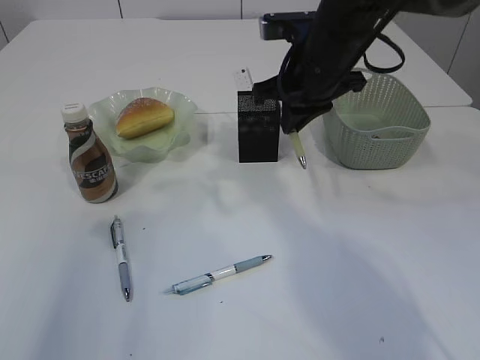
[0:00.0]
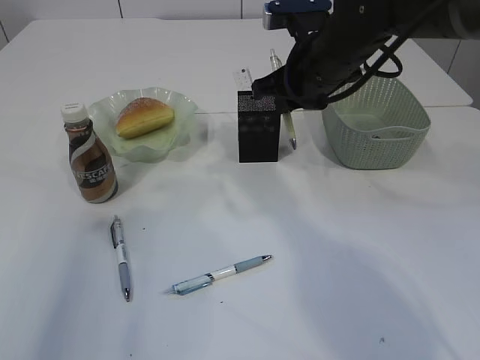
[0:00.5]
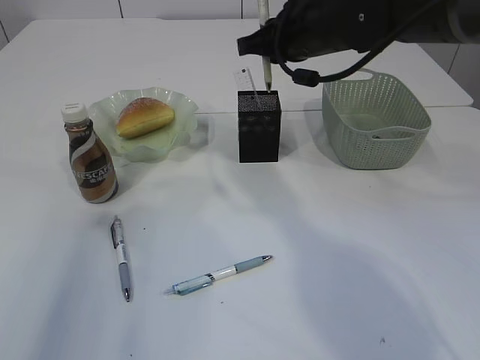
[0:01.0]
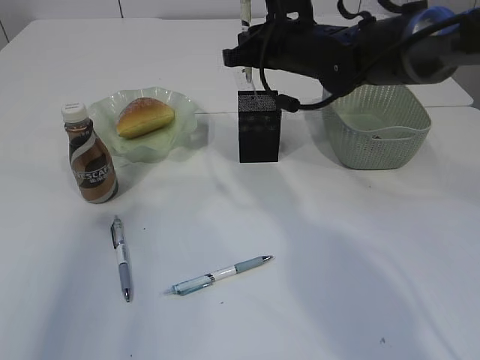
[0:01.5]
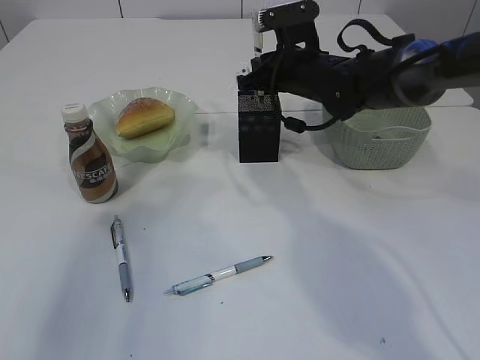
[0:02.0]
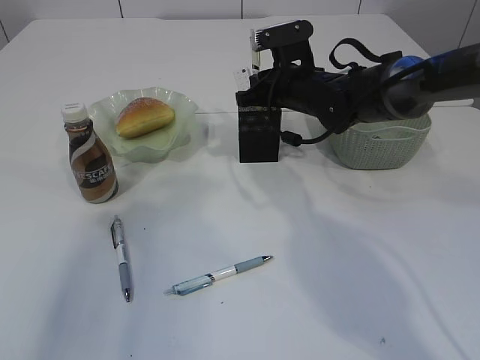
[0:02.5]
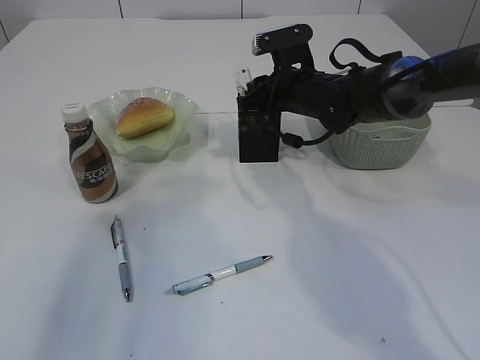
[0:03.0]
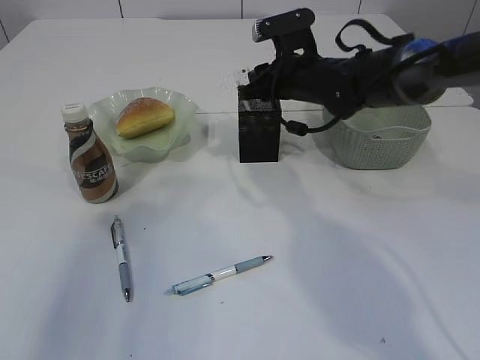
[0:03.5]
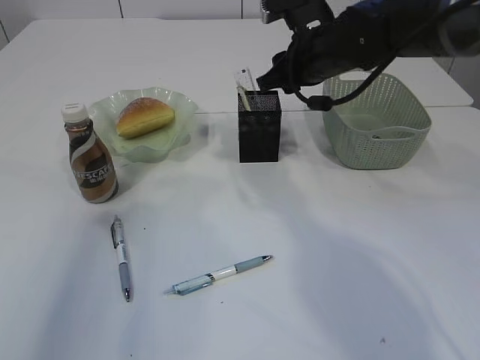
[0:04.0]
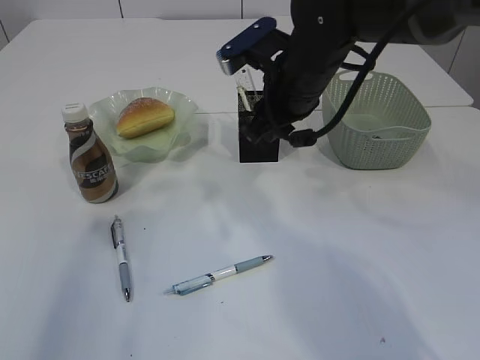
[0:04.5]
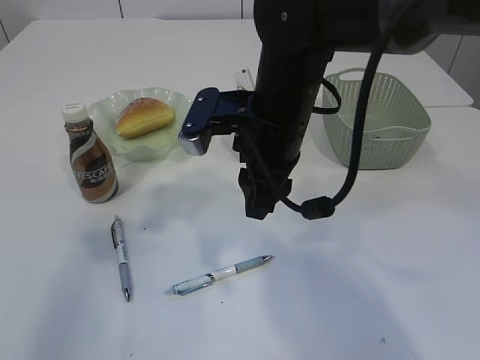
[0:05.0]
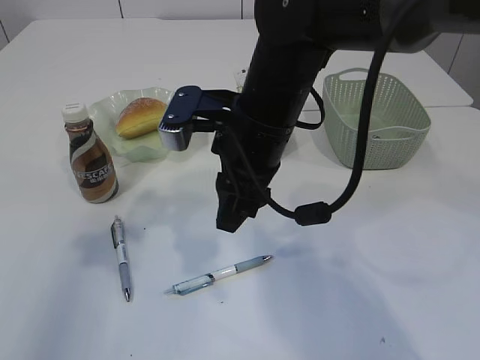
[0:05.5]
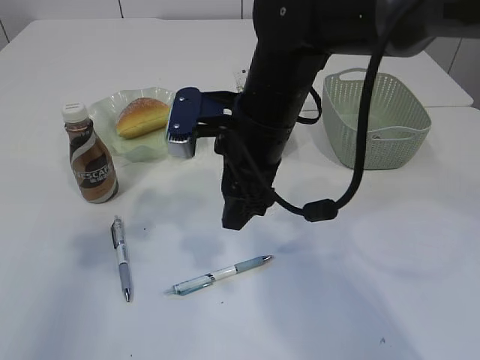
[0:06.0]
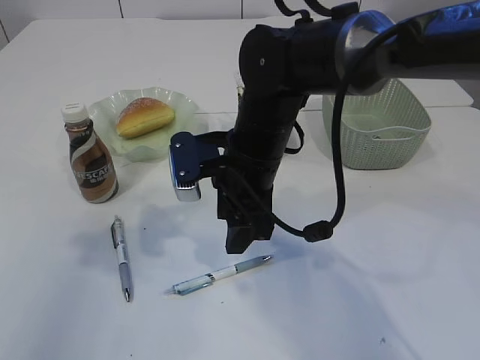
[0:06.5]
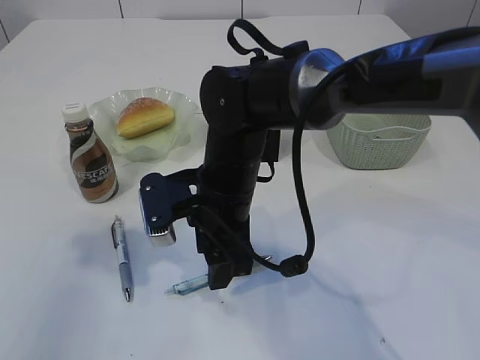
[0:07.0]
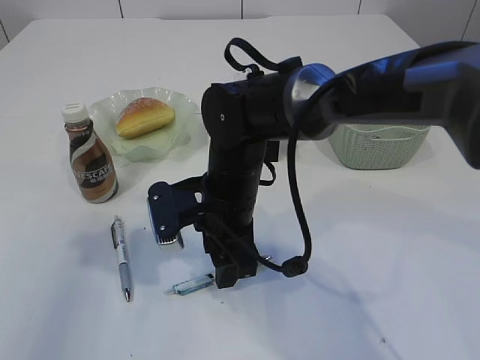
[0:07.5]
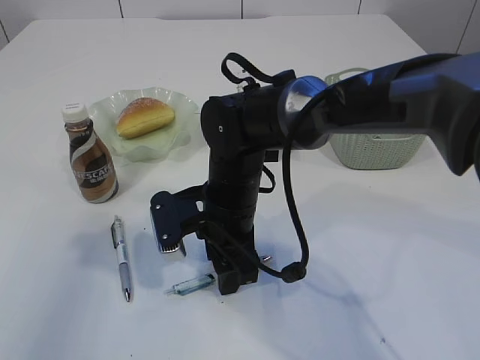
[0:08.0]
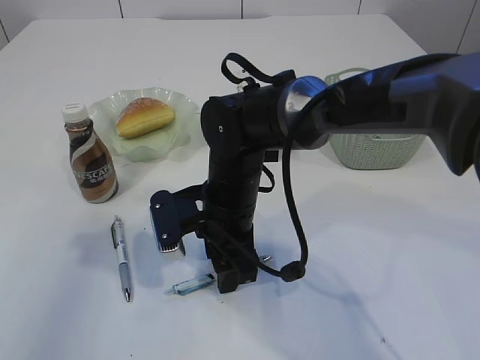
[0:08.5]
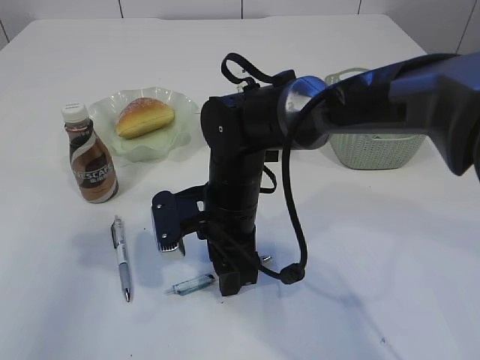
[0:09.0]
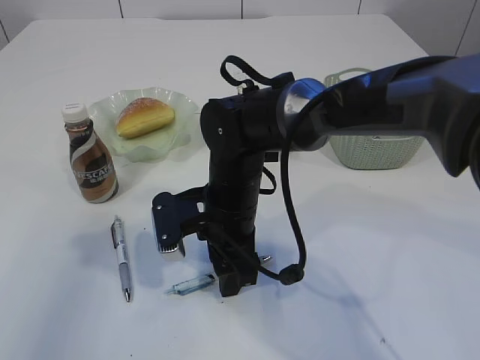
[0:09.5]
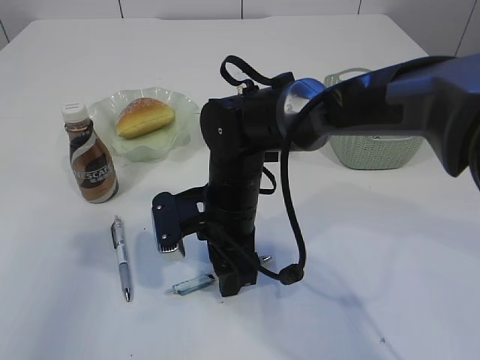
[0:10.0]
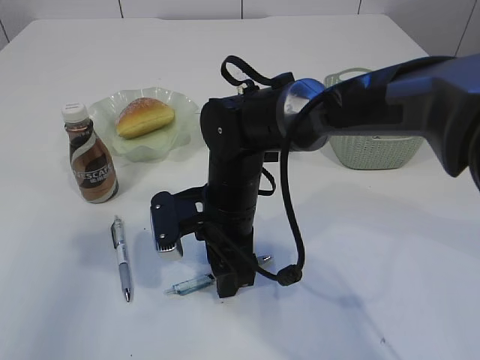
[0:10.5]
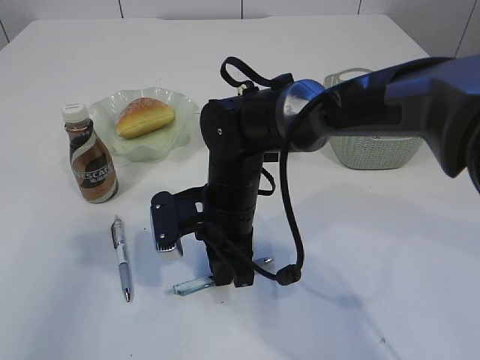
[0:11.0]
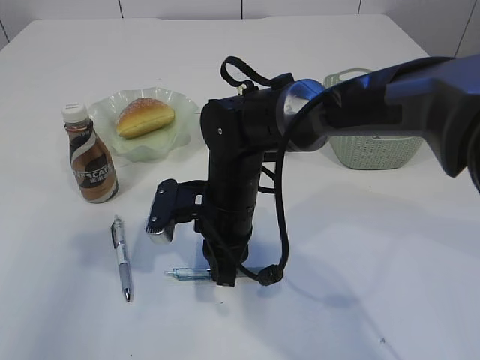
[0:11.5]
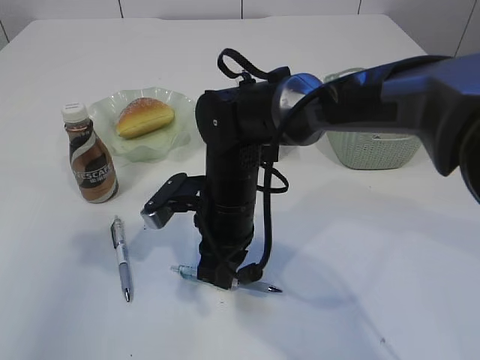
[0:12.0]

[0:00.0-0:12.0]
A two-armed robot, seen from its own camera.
Step, 0.0 to 4.0 s: Place the pen into the pen holder.
0.0 to 2.0 s: The right gripper shifts approximately 10 cm forward and downward.
2.0 to 4.0 s: The right gripper changes place by some 5 cm, and opens its fingers.
4.0 to 6.0 s: The right gripper moves backward and to the left, approximately 15 cm, and opens up.
6.0 to 8.0 s: The right gripper travels downward by some 10 cm.
8.0 to 10.0 s: Neither gripper changes place.
10.0 to 12.0 s: The right gripper closes its fingers.

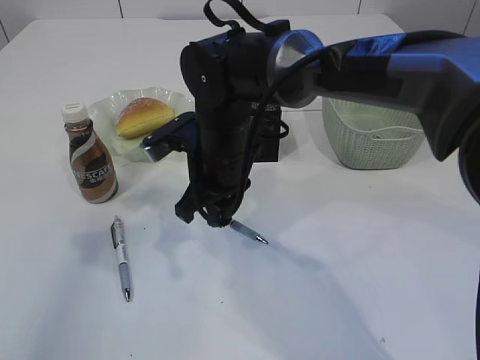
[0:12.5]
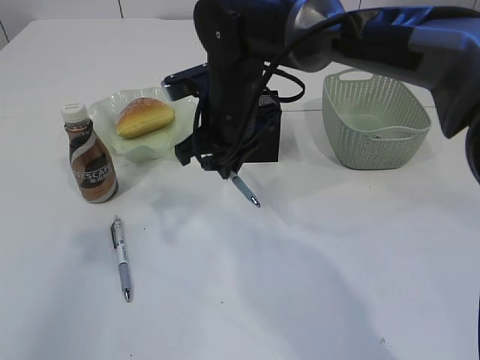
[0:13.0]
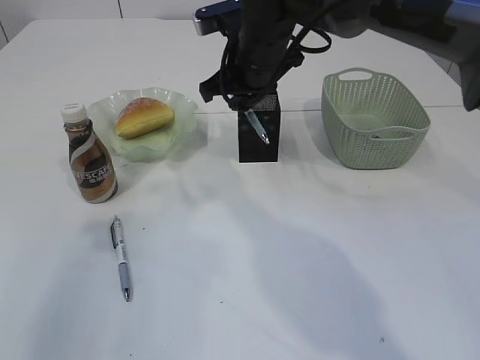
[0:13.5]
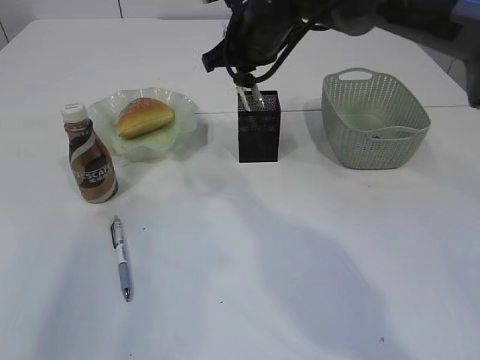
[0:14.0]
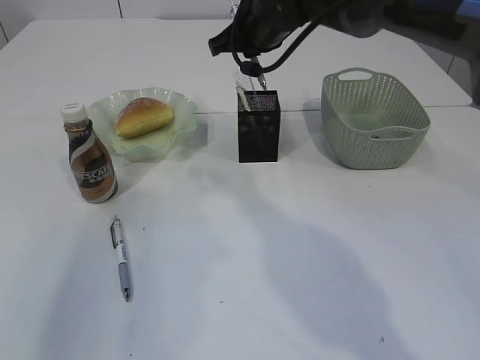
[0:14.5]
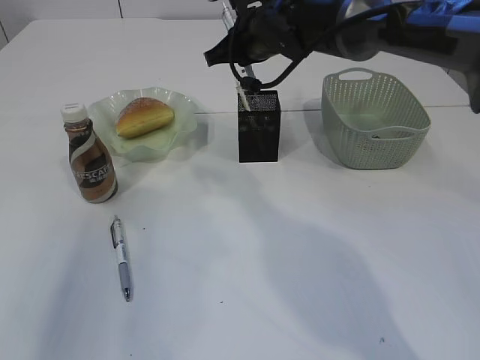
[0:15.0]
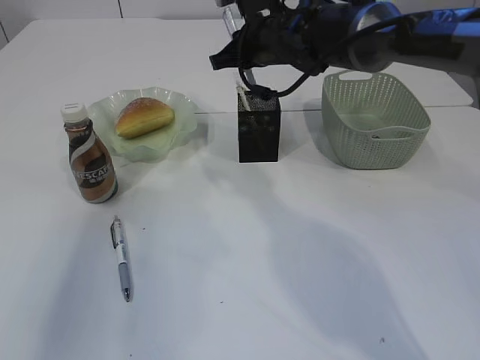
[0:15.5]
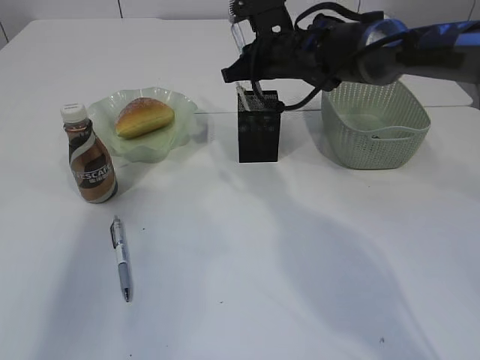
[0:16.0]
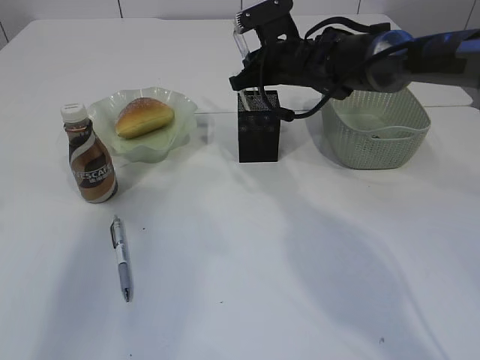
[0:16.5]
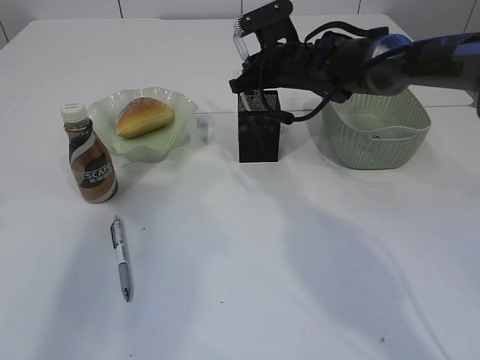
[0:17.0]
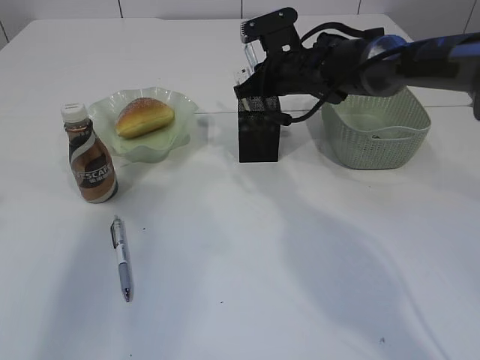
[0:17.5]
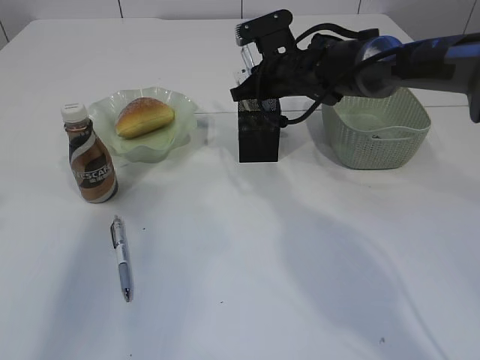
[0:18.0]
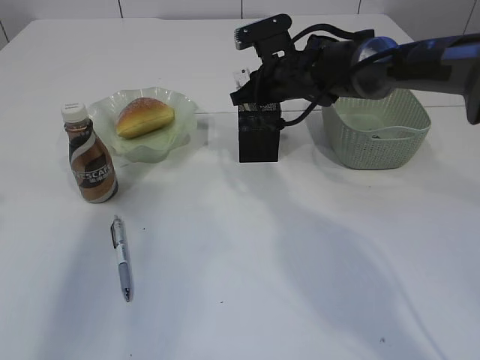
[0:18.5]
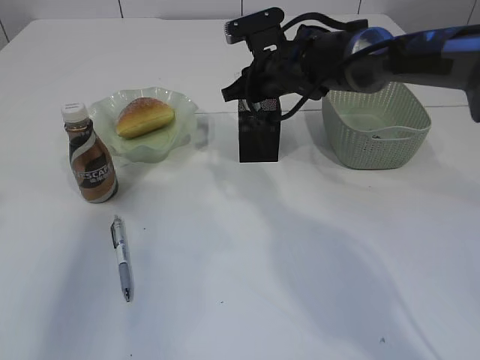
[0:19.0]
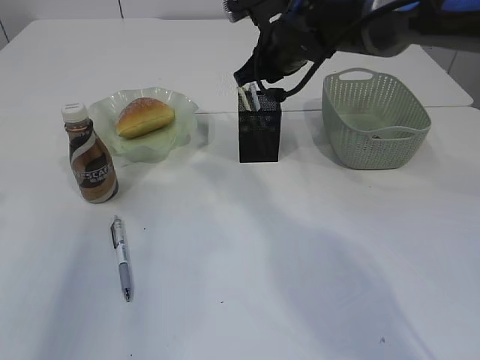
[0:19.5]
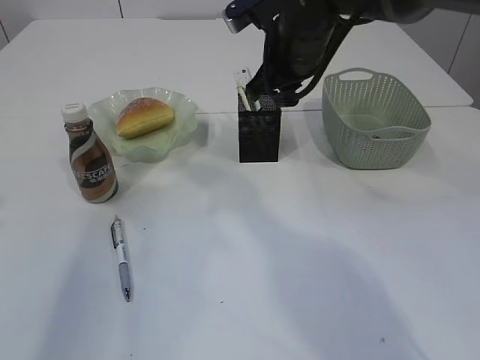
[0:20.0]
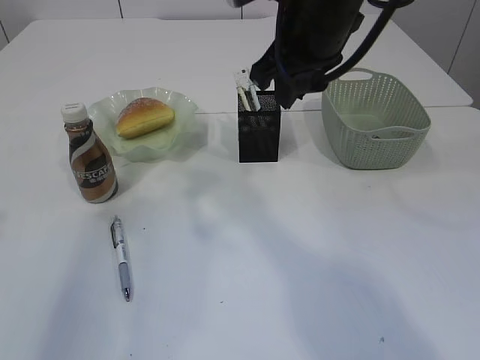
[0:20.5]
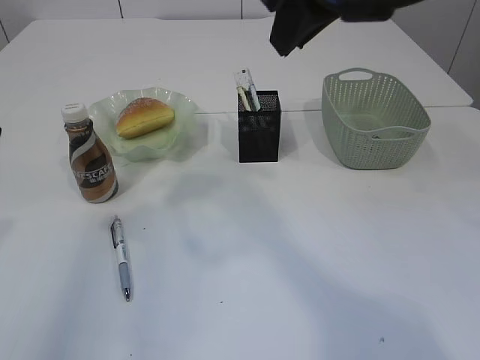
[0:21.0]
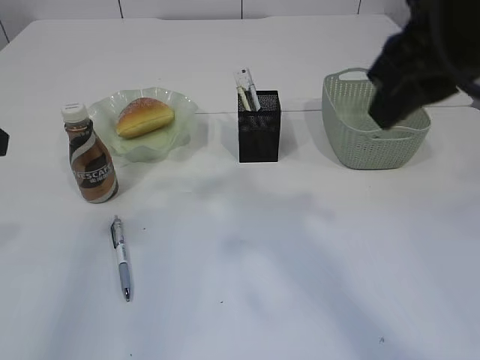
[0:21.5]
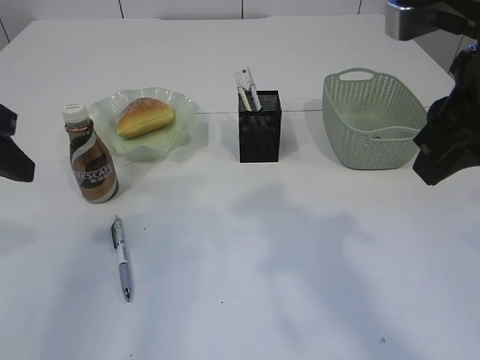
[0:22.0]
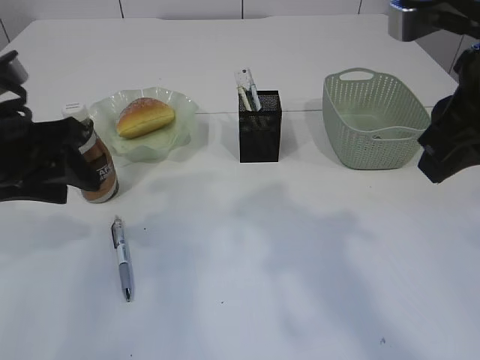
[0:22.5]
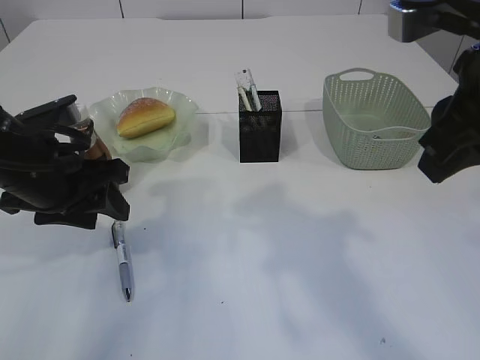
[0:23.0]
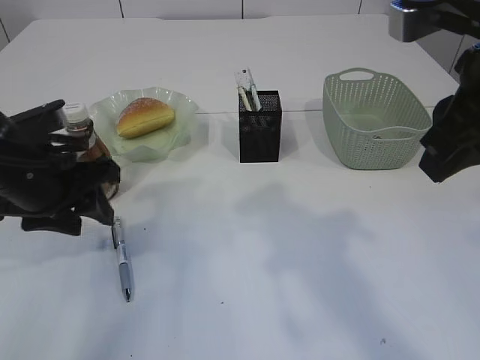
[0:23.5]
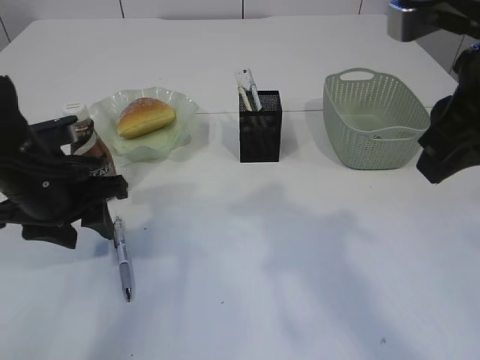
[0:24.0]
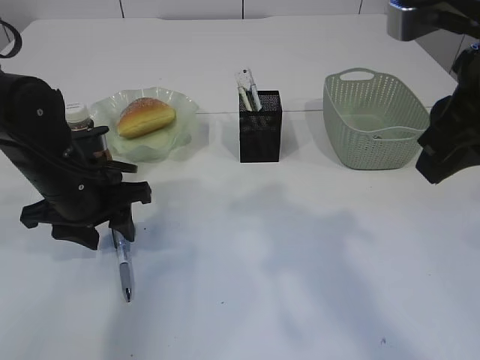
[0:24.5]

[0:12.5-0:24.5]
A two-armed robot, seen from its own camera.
Step, 13.0 to 20.5 s: Place the pen into the pen holder.
12.5 to 14.5 s: The right gripper goes approximately 15 cm forward, upward and to the right.
14.5 to 16.5 s: The right gripper shifts some 5 cm downward.
16.5 to 18.5 s: The grippers stay close to where they were, moving slightly.
18.5 to 20.5 s: The right gripper moves upward and backward, roughly 20 cm.
20.5 to 22.5 s: The left gripper heads downward and to the right, covering some 10 cm. Meanwhile the right gripper is displaced backward and to the right by approximately 15 cm.
22.5 to 24.5 s: The left gripper moves downward, roughly 10 cm.

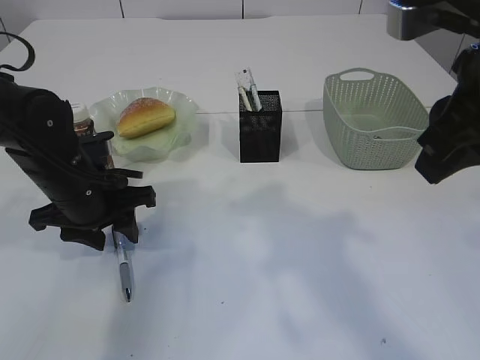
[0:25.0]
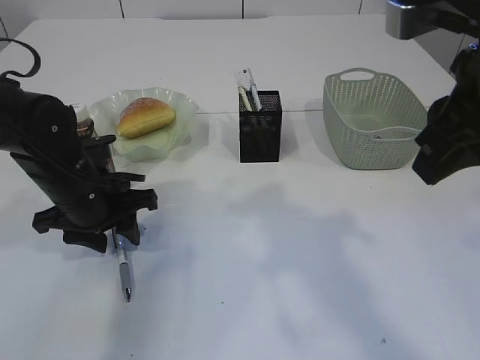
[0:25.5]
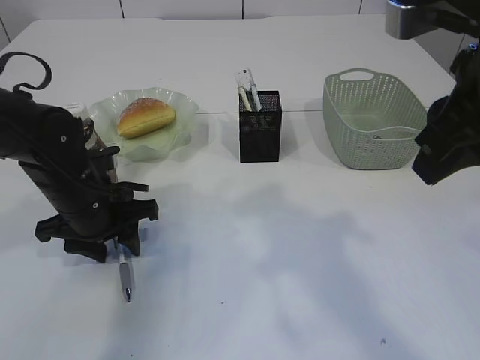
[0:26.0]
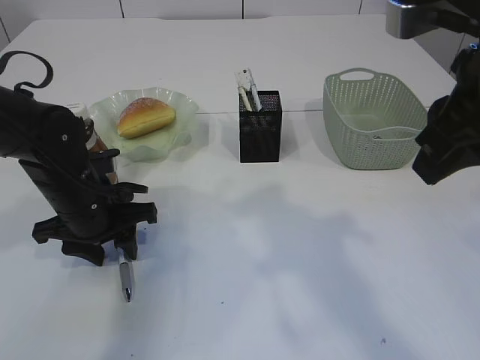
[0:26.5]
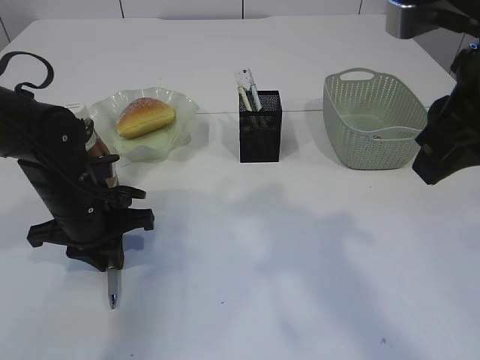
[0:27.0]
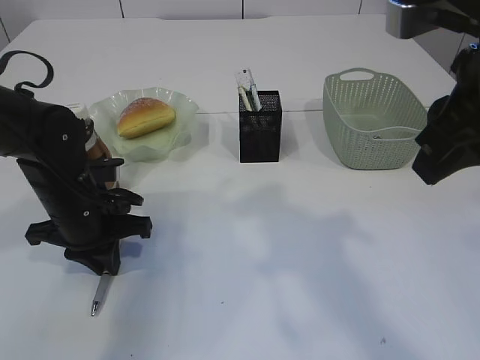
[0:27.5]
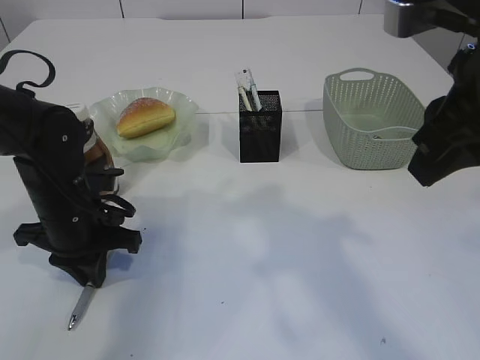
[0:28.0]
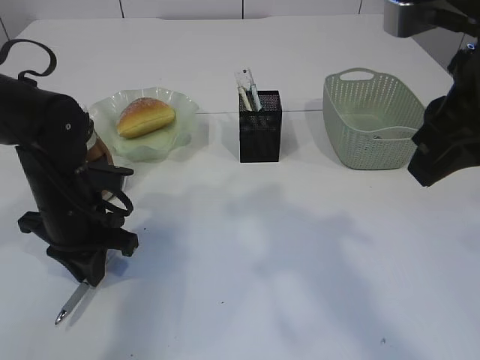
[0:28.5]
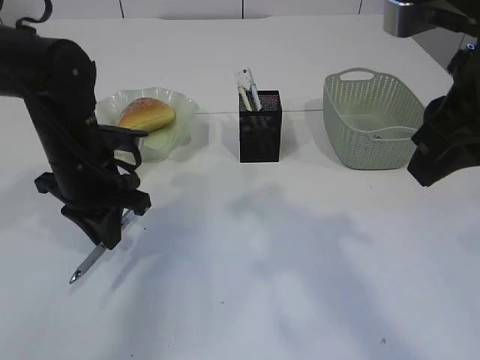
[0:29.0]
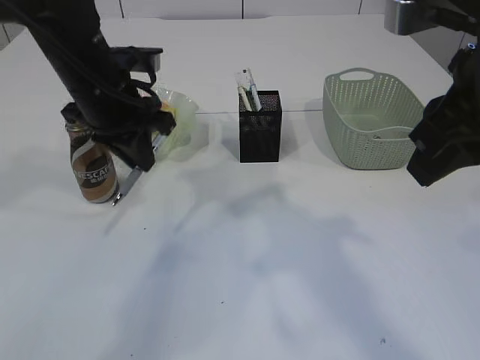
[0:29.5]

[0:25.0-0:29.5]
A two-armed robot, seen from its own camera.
25.0 to 27.0 s: The left gripper closes.
27.0 to 29.5 s: The left gripper moves upward and forward, some 15 cm.
